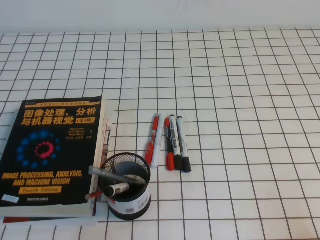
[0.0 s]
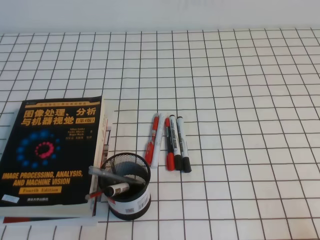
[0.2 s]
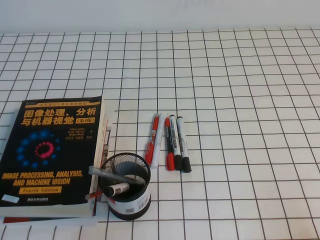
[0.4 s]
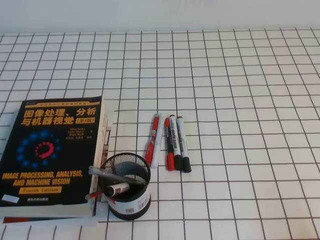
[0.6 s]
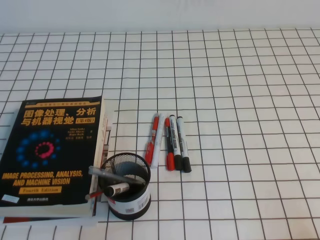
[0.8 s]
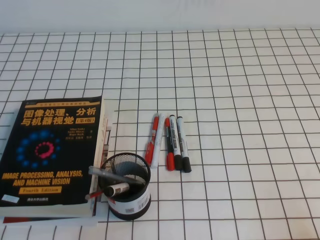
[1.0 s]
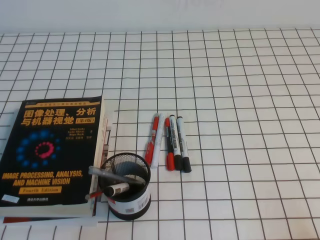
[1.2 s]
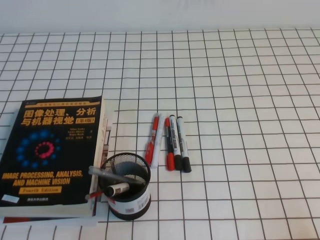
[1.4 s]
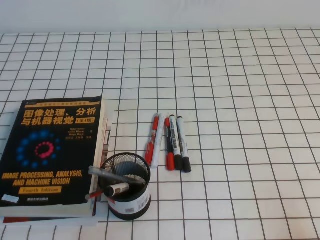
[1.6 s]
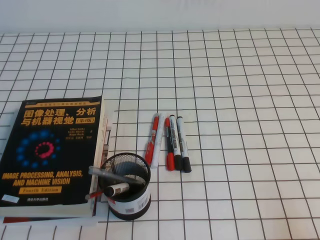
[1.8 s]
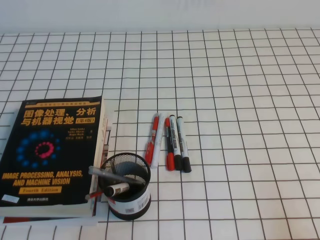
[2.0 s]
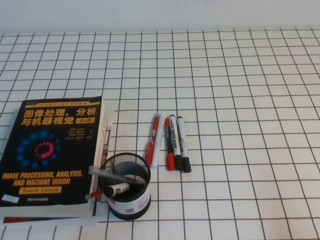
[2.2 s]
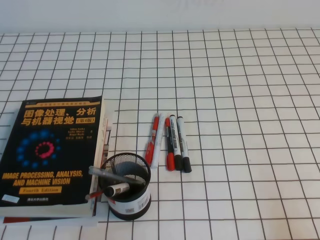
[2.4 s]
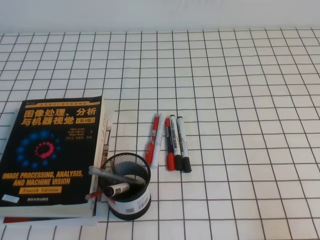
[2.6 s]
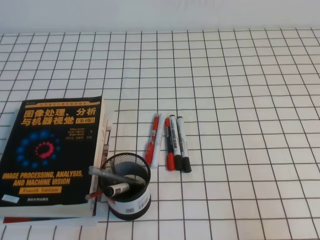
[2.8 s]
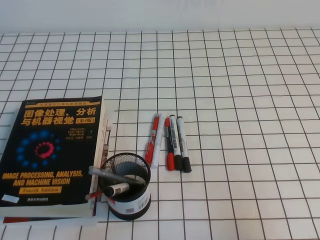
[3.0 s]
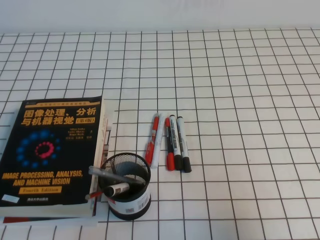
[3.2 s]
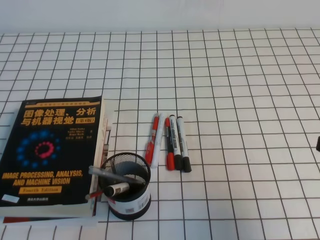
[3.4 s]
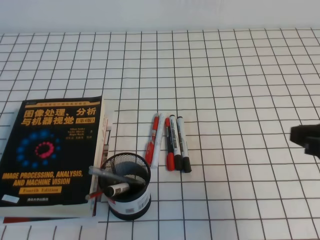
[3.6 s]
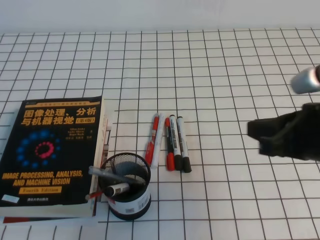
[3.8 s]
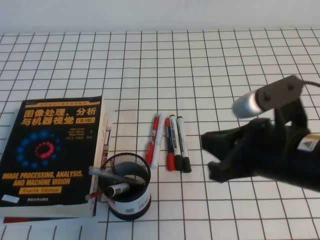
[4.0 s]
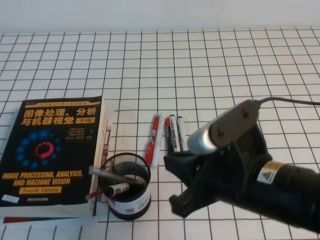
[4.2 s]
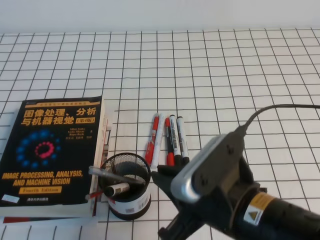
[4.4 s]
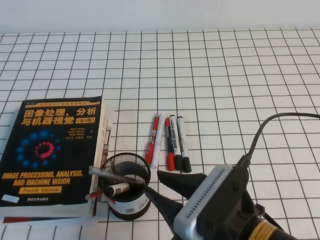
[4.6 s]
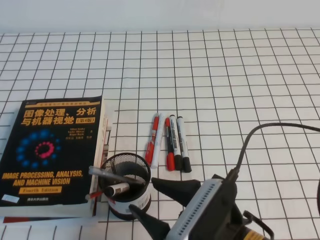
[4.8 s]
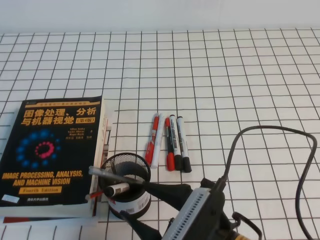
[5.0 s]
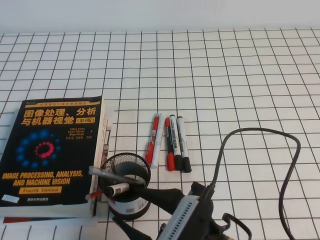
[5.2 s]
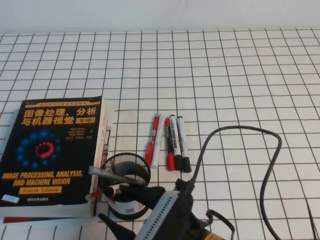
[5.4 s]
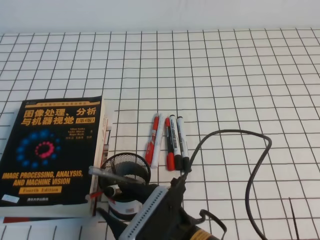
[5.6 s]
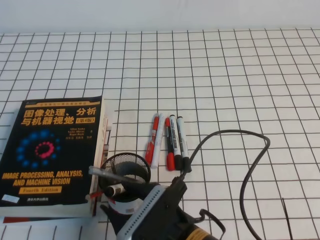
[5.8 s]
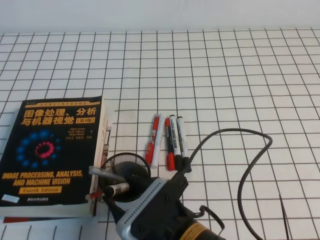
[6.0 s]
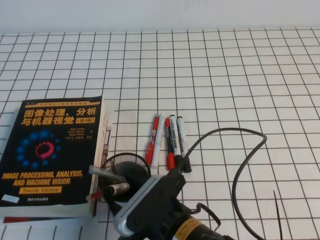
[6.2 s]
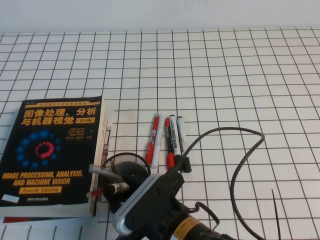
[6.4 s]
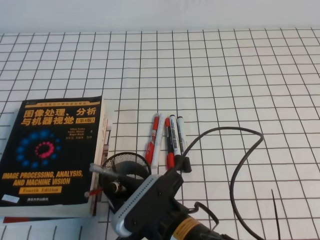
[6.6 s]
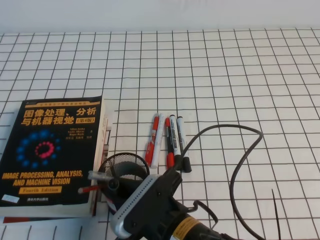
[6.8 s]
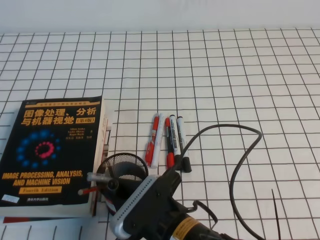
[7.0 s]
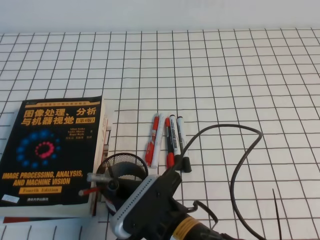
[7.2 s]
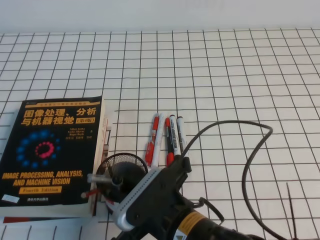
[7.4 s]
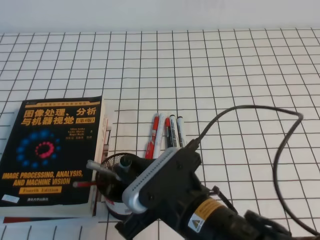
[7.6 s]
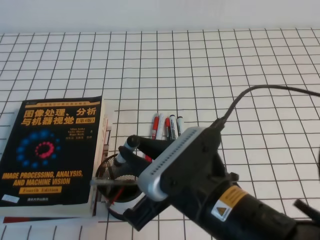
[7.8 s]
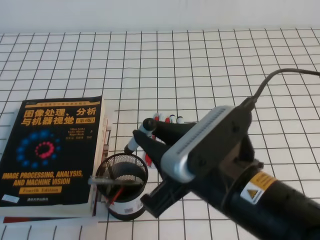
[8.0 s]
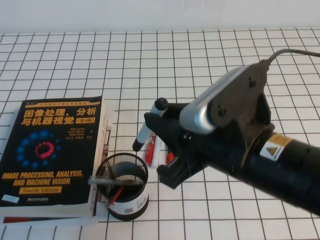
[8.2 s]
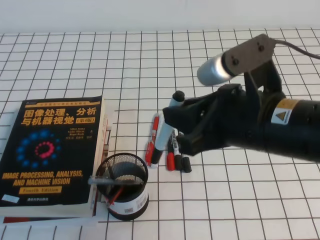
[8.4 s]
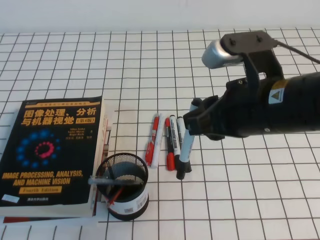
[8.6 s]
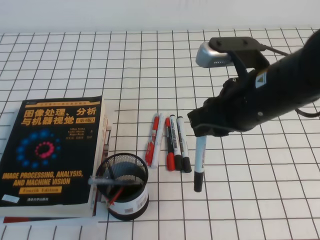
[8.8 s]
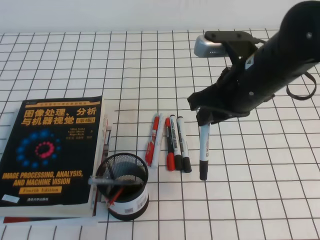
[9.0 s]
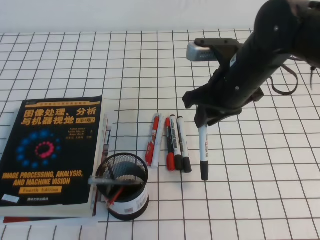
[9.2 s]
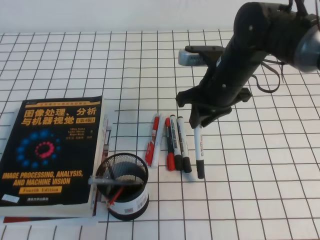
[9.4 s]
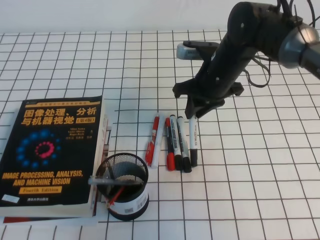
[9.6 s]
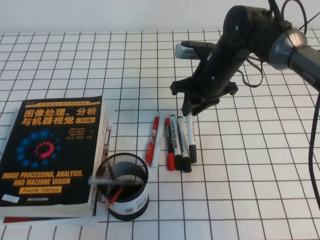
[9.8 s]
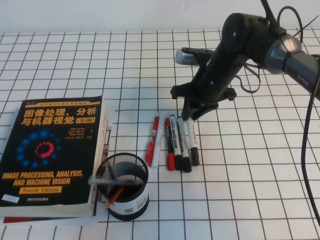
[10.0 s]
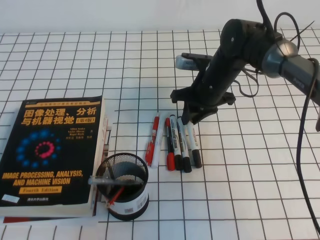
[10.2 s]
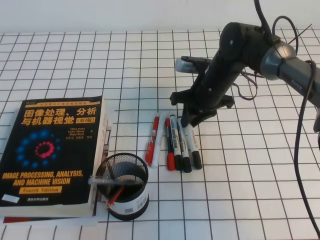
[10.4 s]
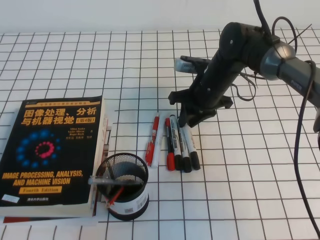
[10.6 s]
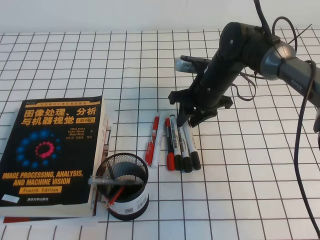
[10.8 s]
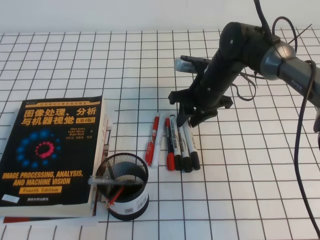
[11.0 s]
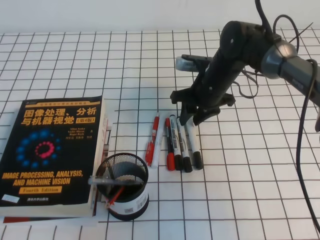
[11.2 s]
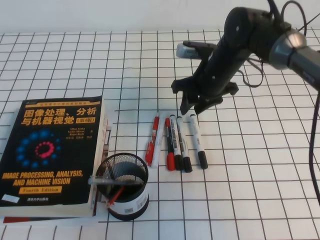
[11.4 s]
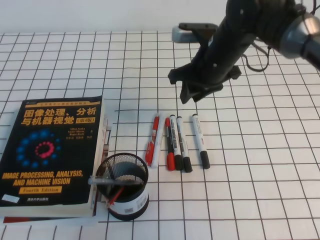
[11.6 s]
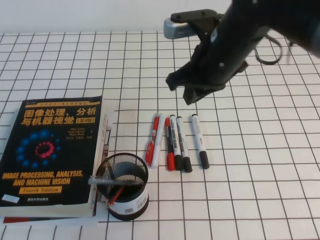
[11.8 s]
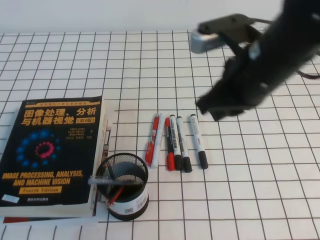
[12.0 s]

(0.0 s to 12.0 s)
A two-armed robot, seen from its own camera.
1.6 s - 3.0 s: The right gripper heads upward, covering about 10 cm.
3.0 s - 4.4 s: The right gripper heads to the left, covering roughly 20 cm.
4.4 s - 6.0 s: The right gripper is displaced downward and to the left by roughly 10 cm, and opens up.
6.0 s - 7.6 s: The right gripper shifts about 5 cm upward, and closes up.
7.6 s - 9.0 s: The right gripper travels forward, to the right and upward by about 20 cm.
9.0 s - 10.4 s: The right gripper moves forward and downward, some 20 cm.
10.4 s - 12.0 s: The right gripper shifts roughly 20 cm upward and backward, and closes its fingers.

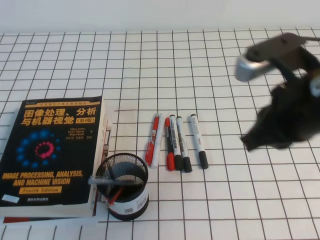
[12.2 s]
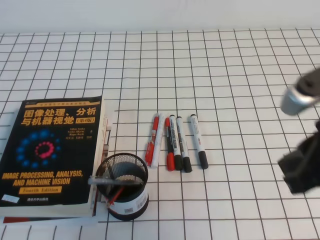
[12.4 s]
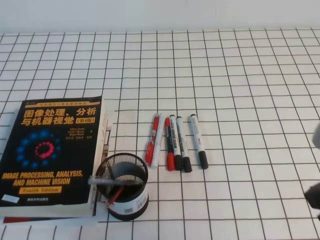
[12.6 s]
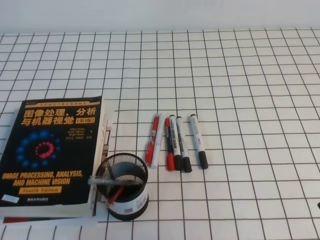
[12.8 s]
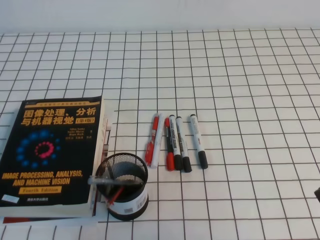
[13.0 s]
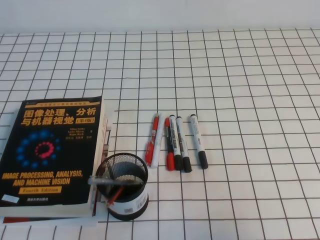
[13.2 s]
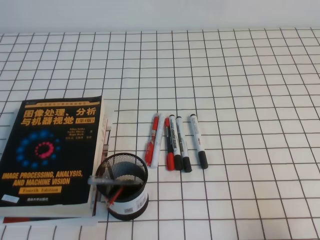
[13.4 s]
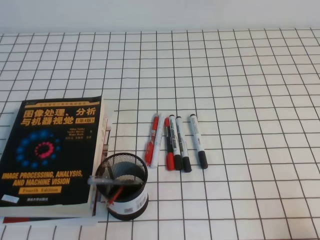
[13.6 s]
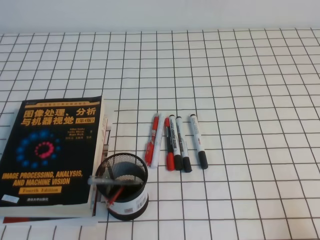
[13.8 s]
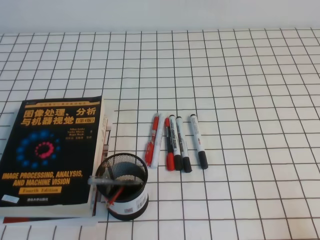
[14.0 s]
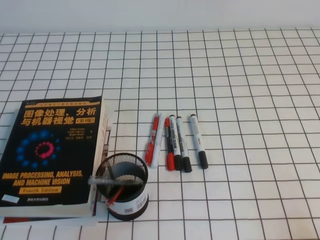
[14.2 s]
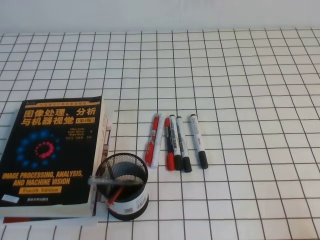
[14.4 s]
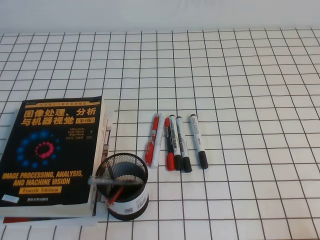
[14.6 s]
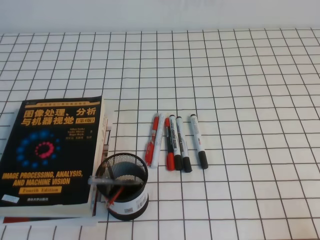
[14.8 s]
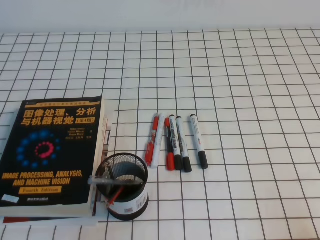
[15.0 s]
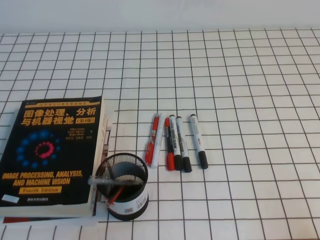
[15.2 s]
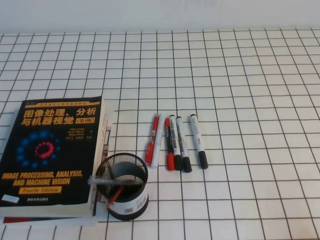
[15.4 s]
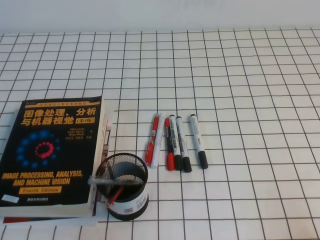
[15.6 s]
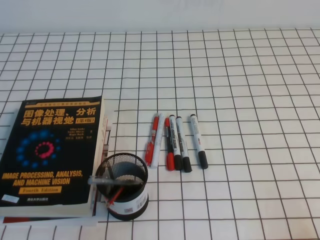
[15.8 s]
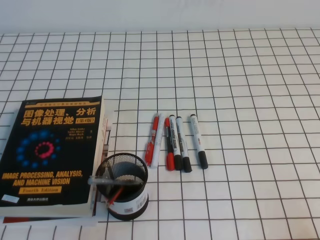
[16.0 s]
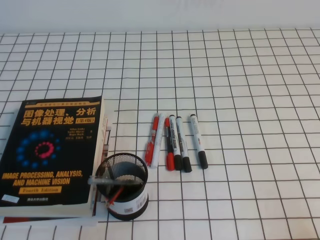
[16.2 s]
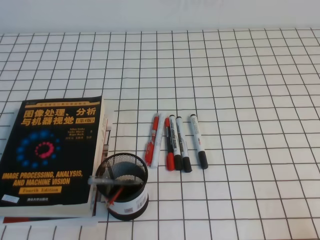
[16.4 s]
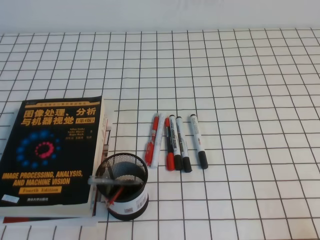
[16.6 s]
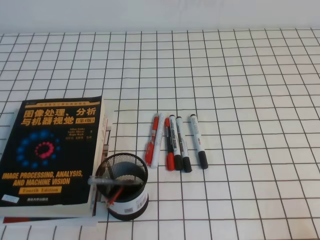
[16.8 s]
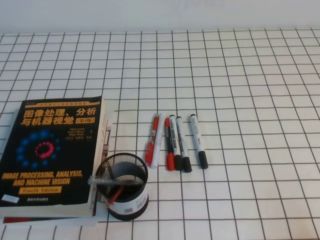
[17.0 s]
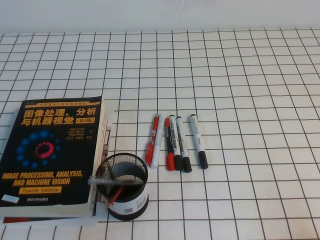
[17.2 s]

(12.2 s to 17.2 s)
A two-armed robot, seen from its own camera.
Step, 12.2 s - 17.2 s: Pick up the pen from the pen holder.
12.2 s - 13.8 s: The right gripper shifts approximately 30 cm downward, backward and to the right.
15.6 s - 17.2 s: Both grippers stay about where they are.
